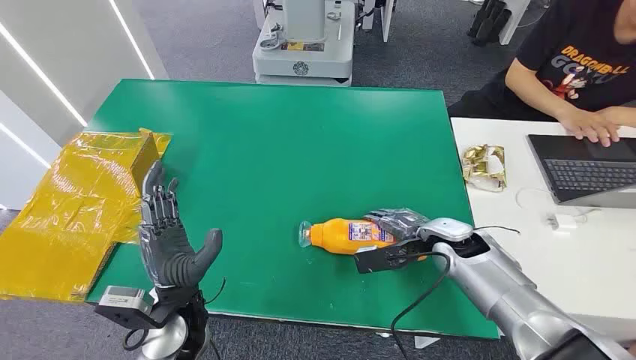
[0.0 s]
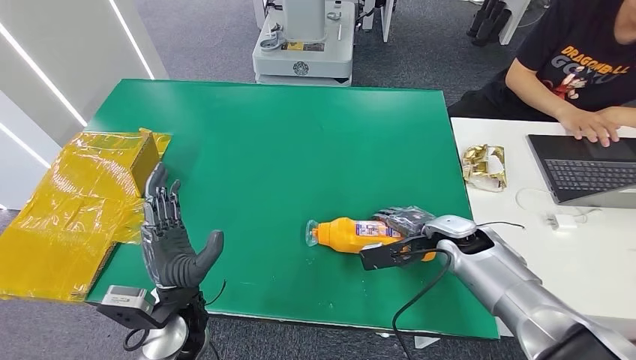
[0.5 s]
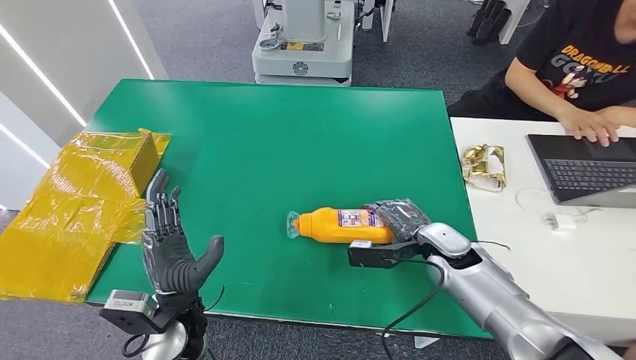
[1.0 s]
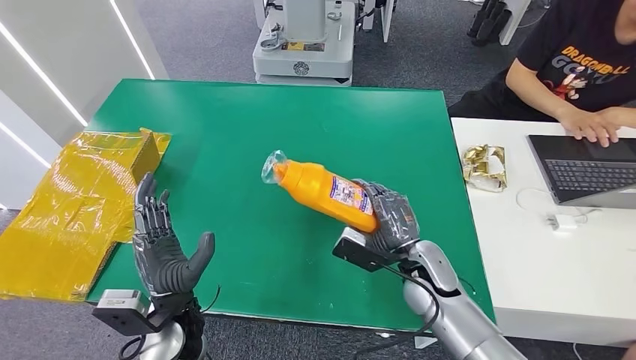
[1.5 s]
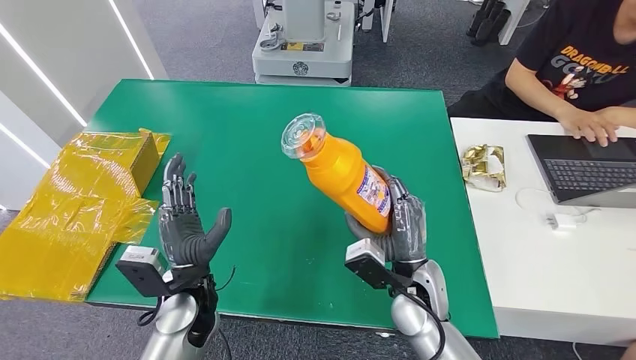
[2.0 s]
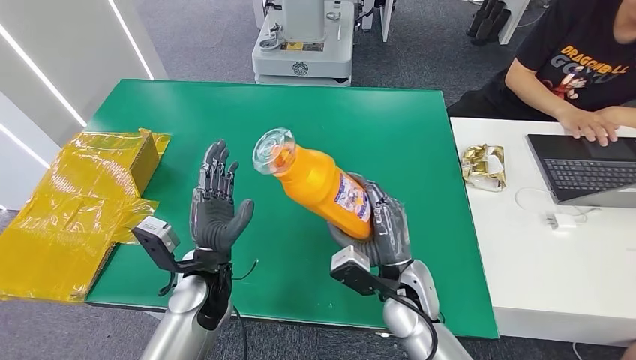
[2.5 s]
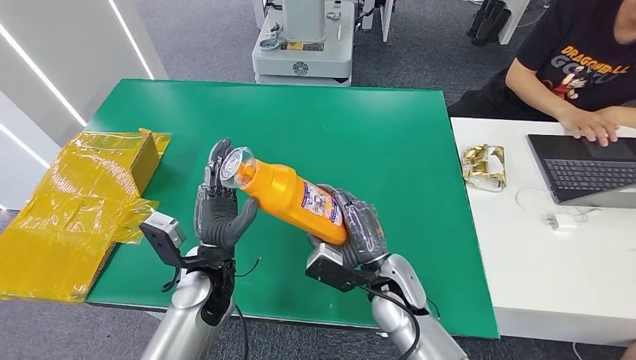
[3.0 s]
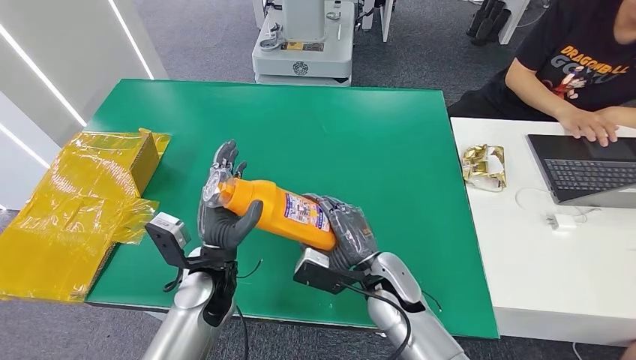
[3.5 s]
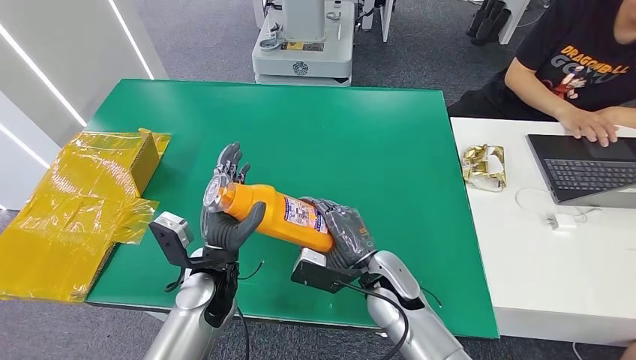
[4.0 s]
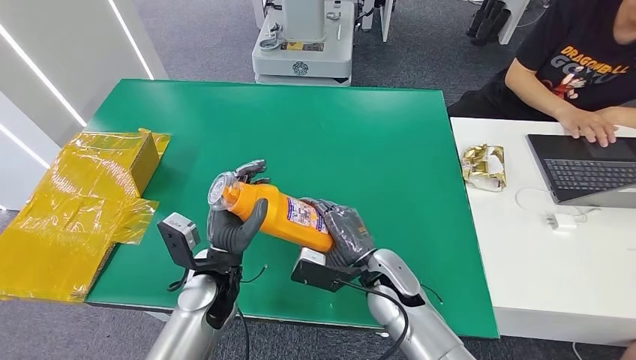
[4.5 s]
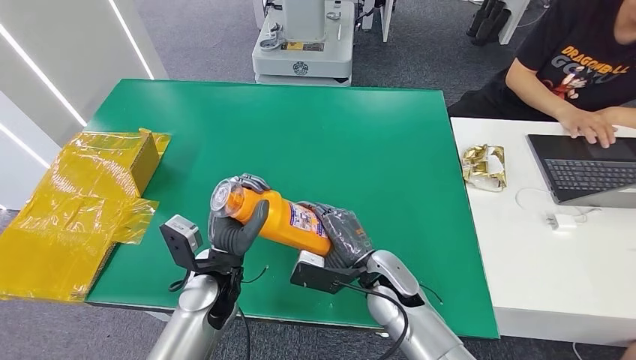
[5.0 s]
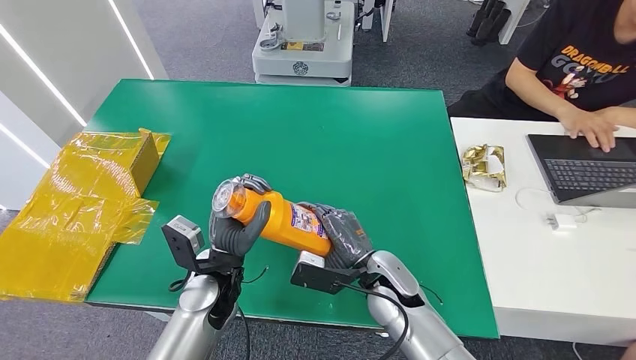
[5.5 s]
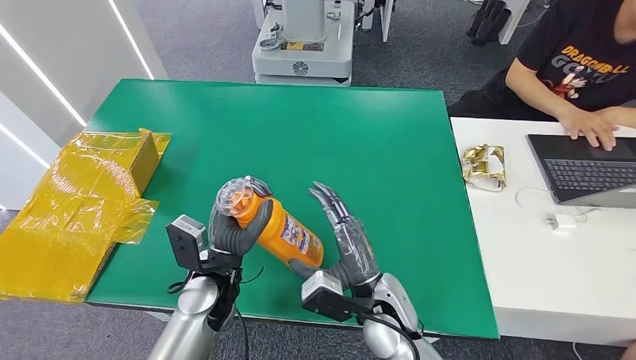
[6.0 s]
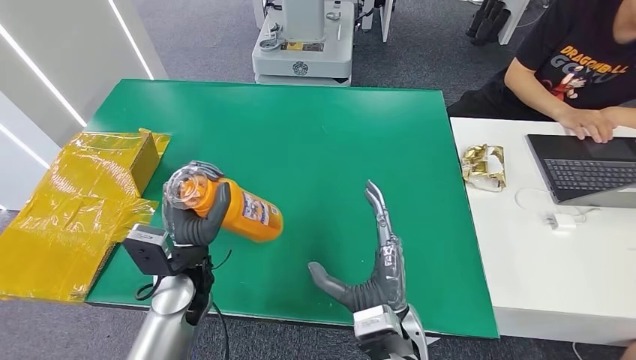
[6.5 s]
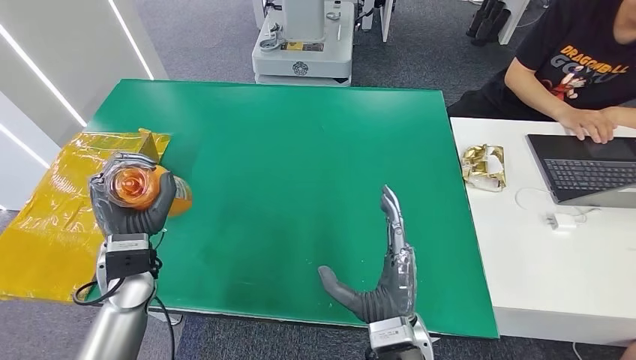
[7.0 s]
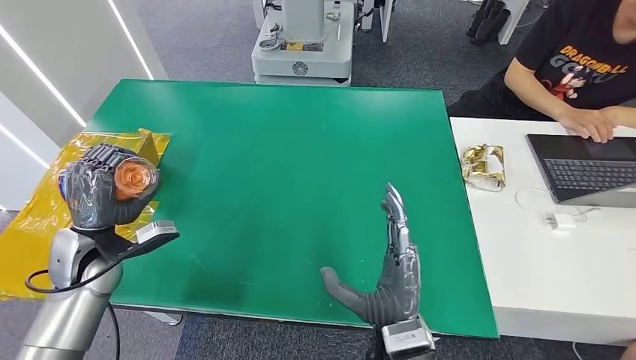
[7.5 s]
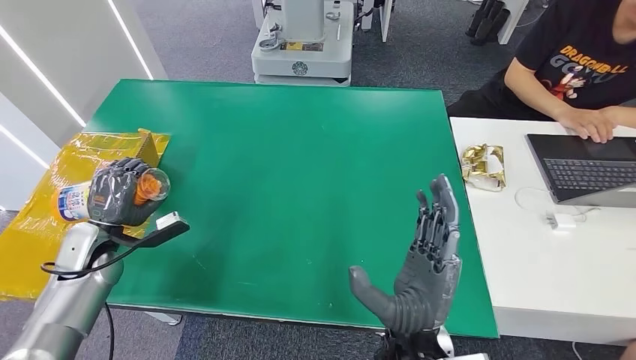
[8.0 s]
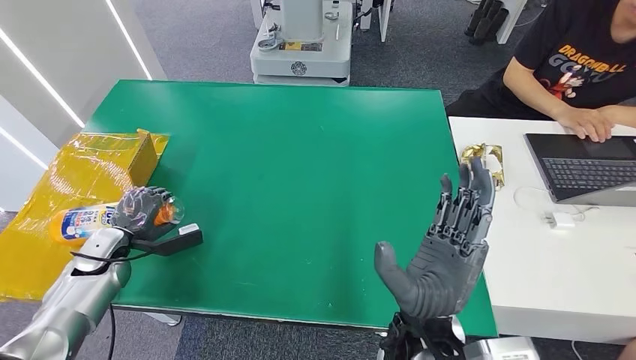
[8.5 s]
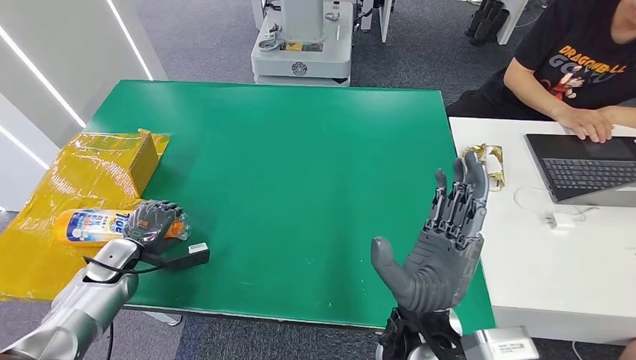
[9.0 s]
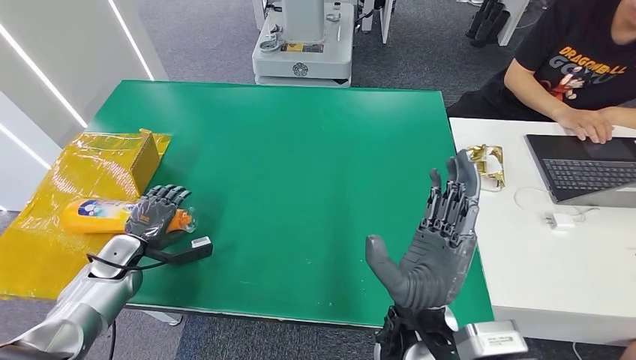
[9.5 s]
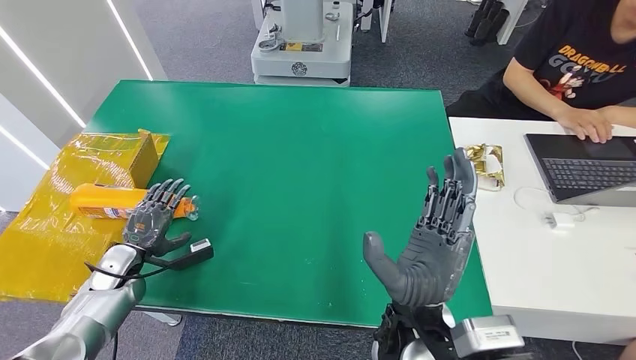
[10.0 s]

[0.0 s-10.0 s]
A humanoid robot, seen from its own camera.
Step, 0.0 to 3.5 s: Pick up the bottle from the table.
Step, 4.0 to 10.0 s: Turn the bottle to the front side.
4.0 to 6.0 s: The hands stay close to where they were, moving slightly.
6.0 to 8.0 s: The right hand heads backward and upward, covering some 10 cm; the left hand heads to the left, covering approximately 25 cm.
8.0 to 10.0 s: The left hand moves downward, roughly 10 cm.
